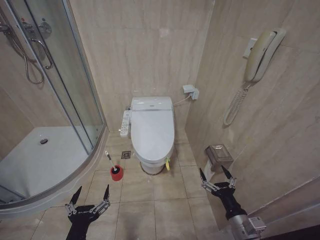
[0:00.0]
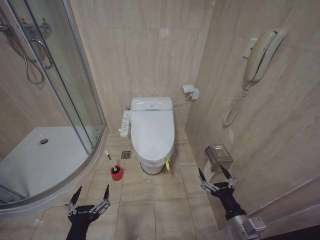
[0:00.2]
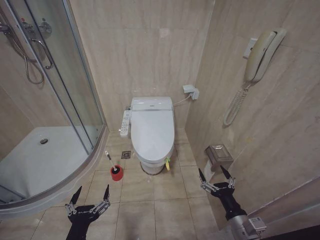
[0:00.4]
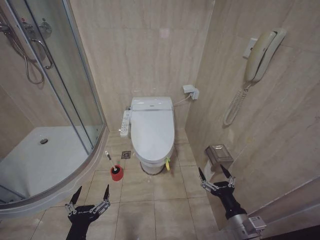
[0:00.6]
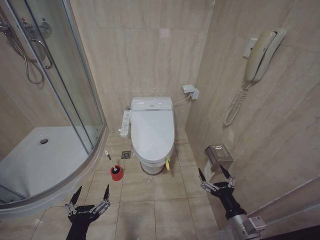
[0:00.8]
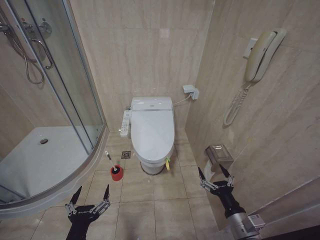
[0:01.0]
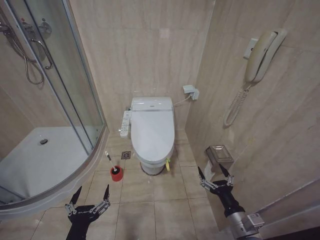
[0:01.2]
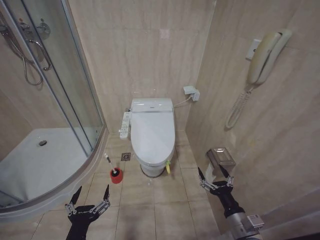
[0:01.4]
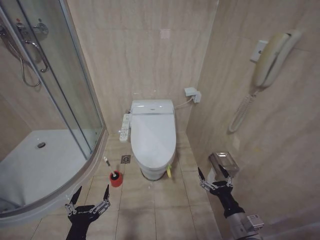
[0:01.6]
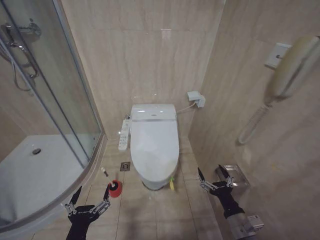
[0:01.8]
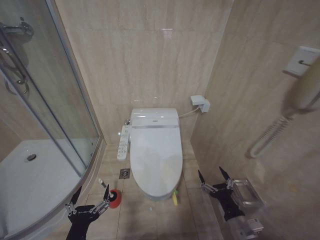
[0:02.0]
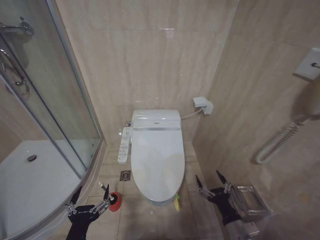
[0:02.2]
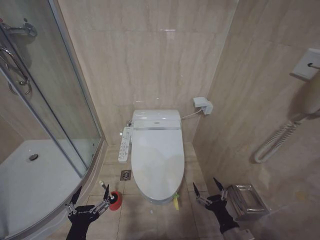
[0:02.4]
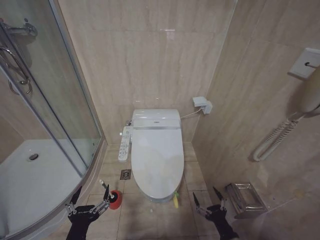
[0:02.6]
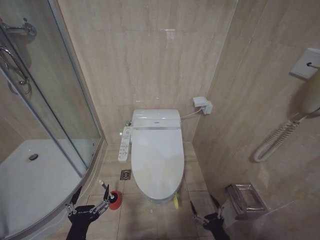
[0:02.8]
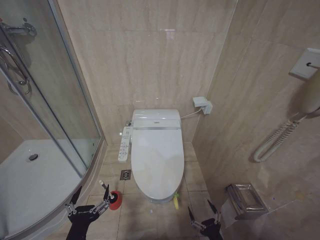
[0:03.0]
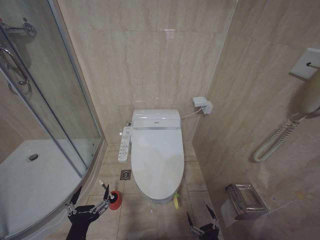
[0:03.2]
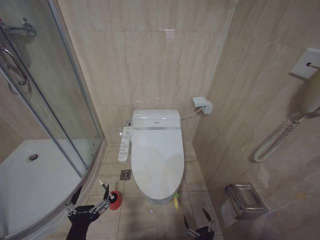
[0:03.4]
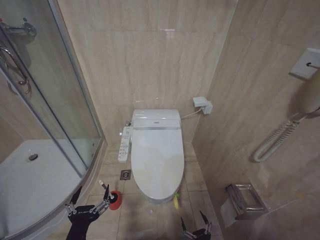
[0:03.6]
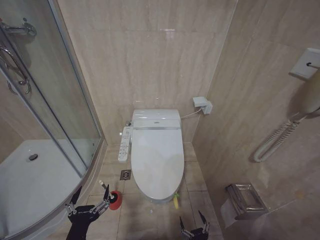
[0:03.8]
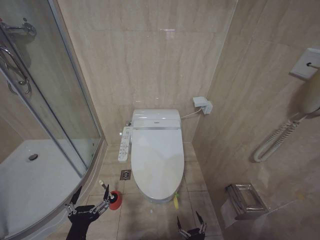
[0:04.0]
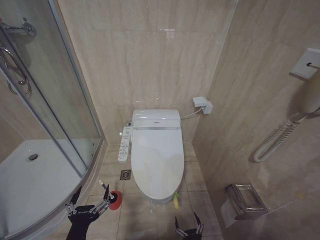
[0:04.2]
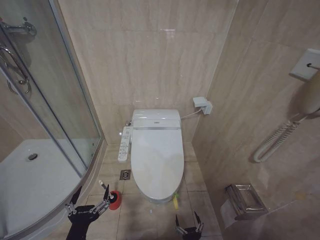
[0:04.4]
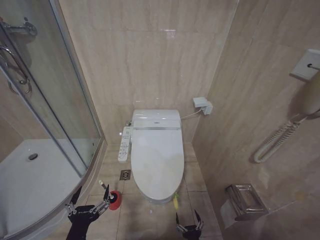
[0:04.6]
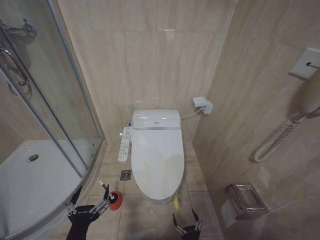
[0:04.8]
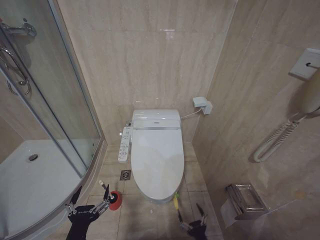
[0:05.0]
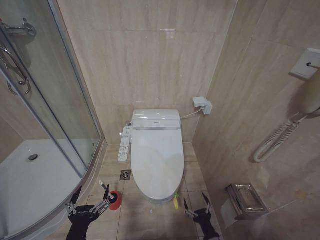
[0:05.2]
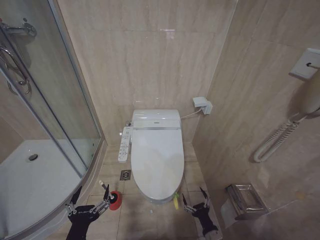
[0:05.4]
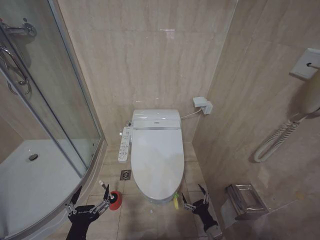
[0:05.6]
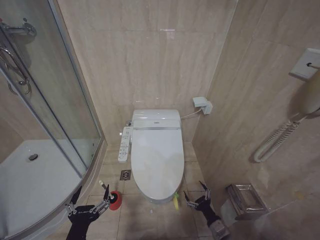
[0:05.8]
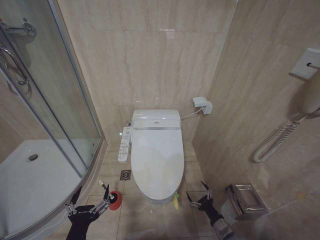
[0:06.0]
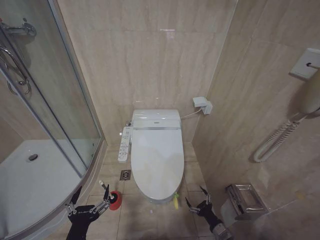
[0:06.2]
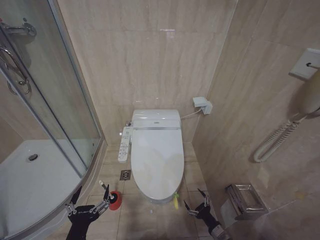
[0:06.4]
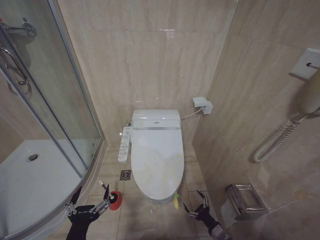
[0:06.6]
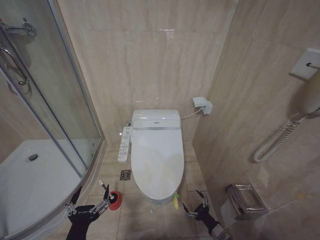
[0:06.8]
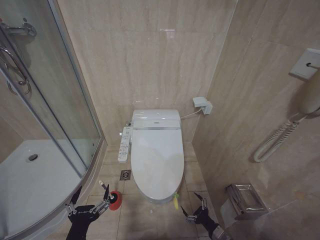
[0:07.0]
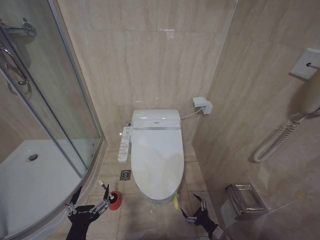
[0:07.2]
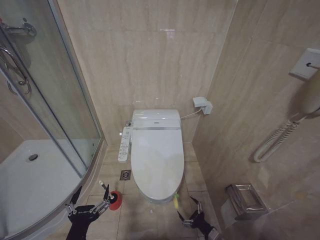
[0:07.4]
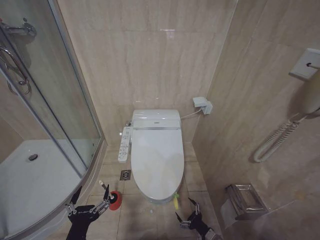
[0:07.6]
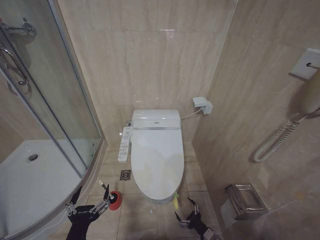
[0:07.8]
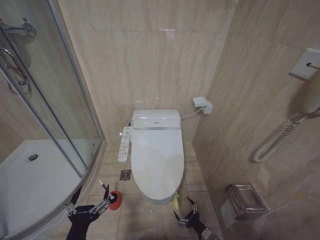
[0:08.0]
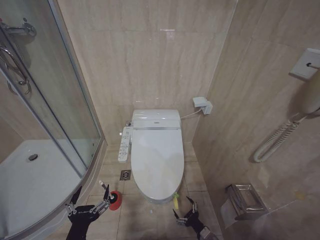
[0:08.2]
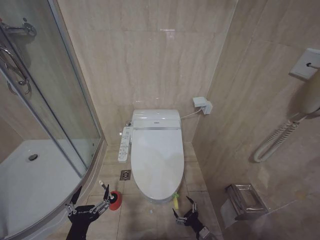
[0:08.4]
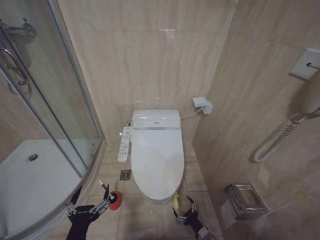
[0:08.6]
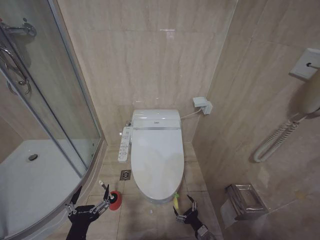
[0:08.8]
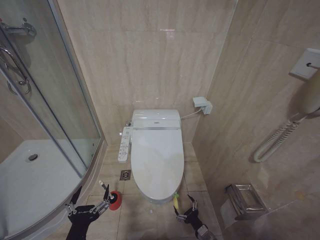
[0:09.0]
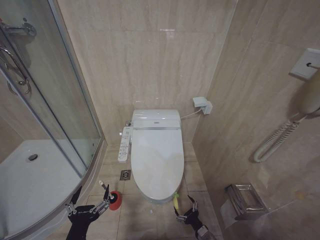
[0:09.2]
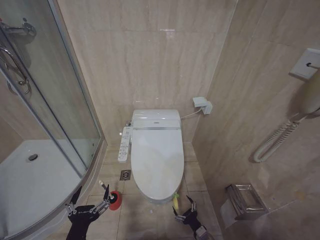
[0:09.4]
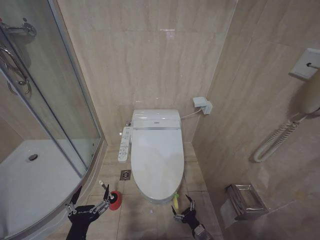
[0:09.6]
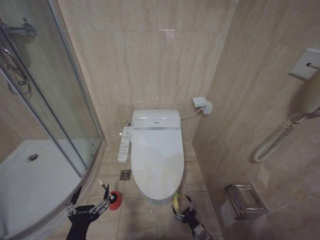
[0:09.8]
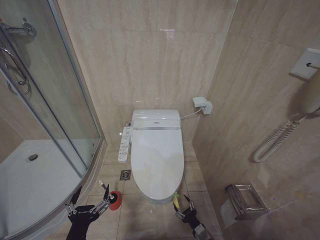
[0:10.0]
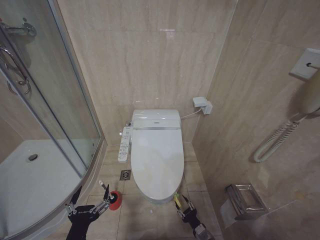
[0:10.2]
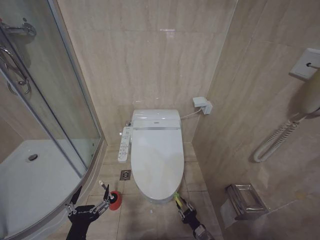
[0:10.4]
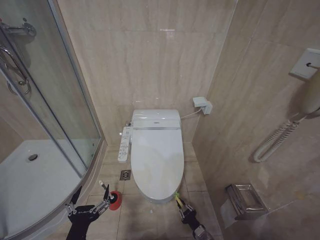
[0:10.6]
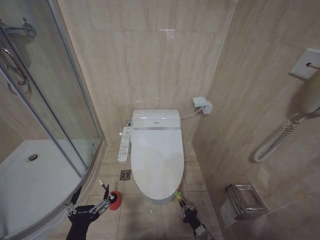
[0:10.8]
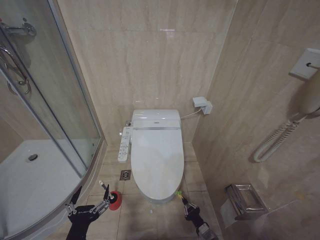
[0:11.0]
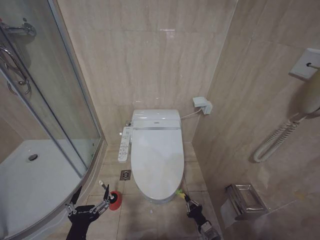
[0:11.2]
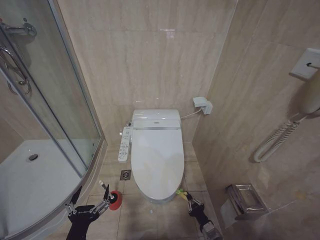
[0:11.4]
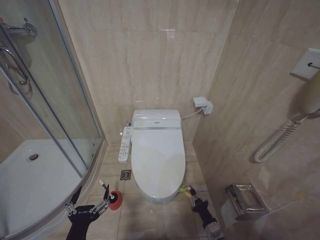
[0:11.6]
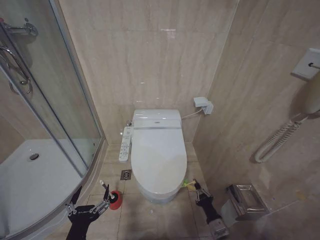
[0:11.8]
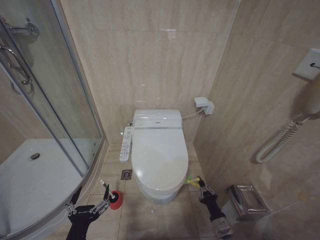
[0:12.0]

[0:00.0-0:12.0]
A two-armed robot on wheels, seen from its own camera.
Task of the whole recording: Open the toilet lid, clean the toilet bowl with a toilet brush, close the toilet lid, and flush.
0:01.6 to 0:03.0: The right gripper travels downward and backward by approximately 15 cm.
0:03.0 to 0:04.4: The right gripper heads downward and to the left, covering roughly 15 cm.
0:04.4 to 0:06.0: The right gripper moves to the right, forward and upward, approximately 20 cm.
0:06.0 to 0:07.6: There are only small adjustments of the grippers.
0:10.4 to 0:12.0: The right gripper travels upward by about 10 cm, and closes up.

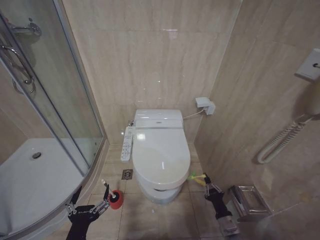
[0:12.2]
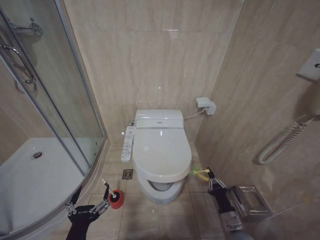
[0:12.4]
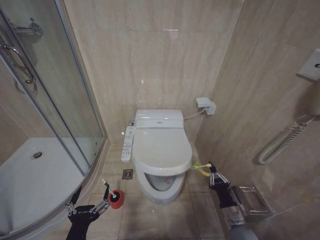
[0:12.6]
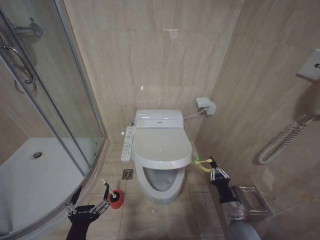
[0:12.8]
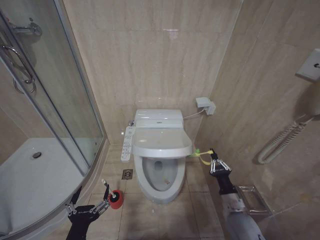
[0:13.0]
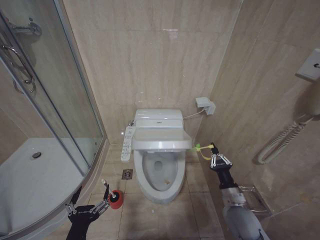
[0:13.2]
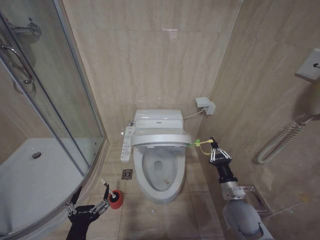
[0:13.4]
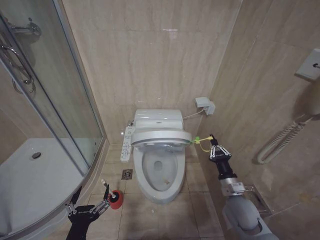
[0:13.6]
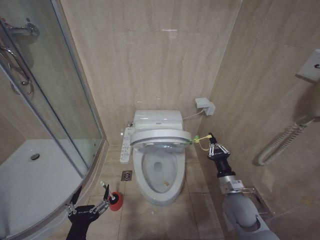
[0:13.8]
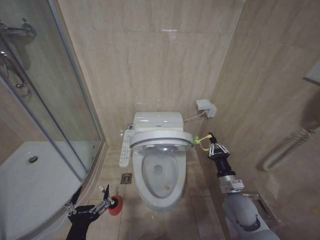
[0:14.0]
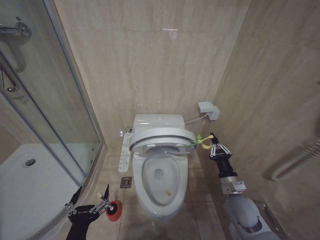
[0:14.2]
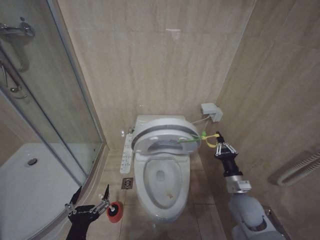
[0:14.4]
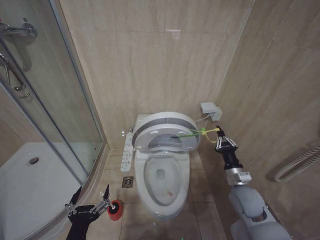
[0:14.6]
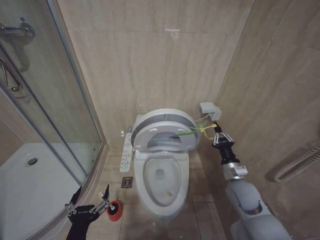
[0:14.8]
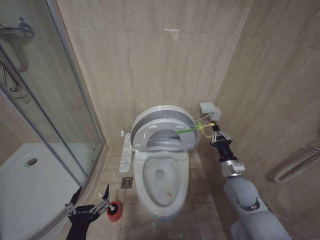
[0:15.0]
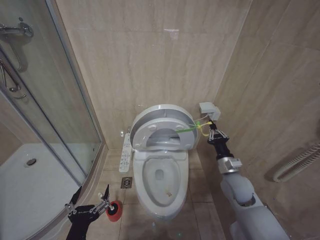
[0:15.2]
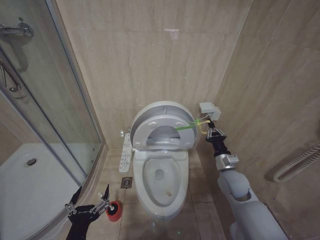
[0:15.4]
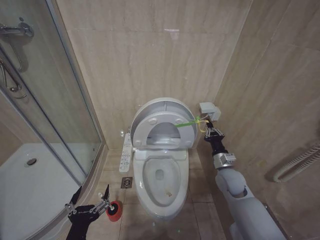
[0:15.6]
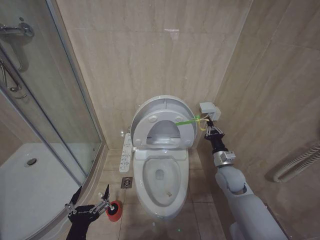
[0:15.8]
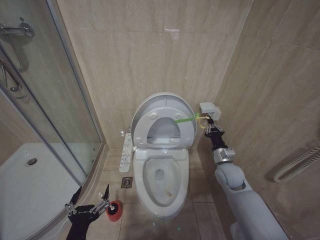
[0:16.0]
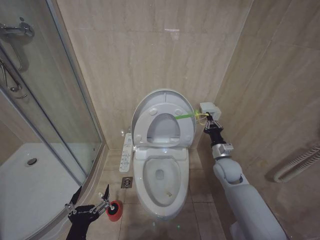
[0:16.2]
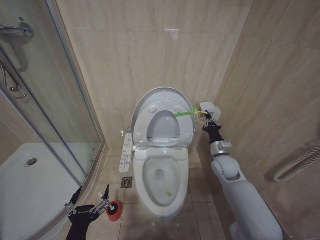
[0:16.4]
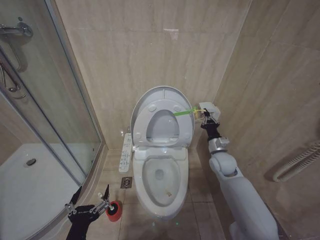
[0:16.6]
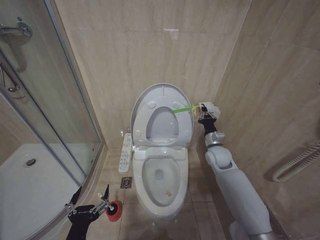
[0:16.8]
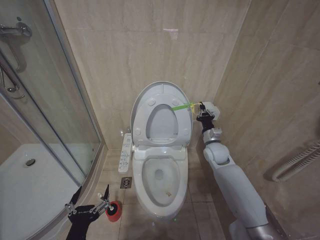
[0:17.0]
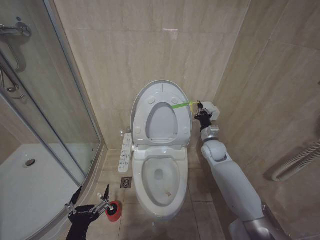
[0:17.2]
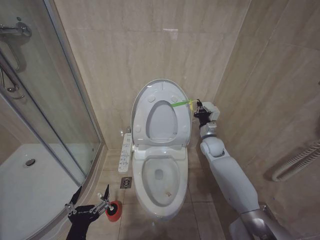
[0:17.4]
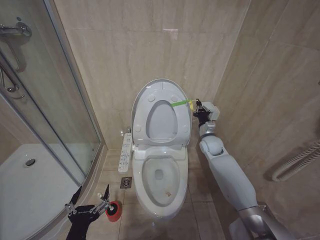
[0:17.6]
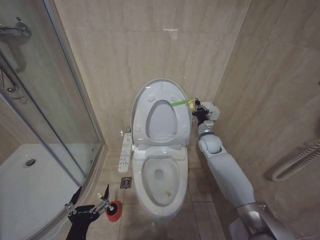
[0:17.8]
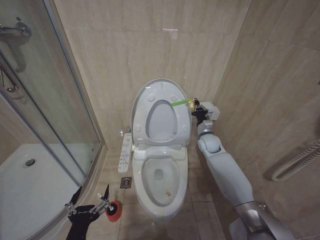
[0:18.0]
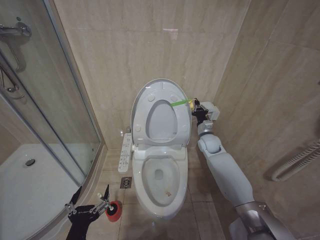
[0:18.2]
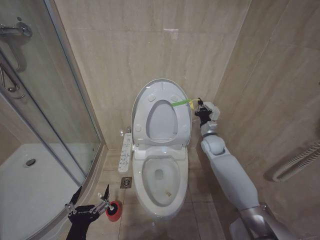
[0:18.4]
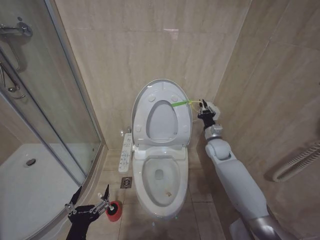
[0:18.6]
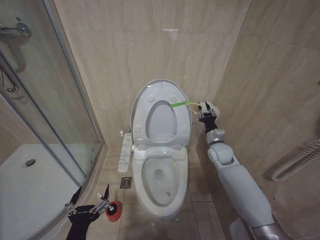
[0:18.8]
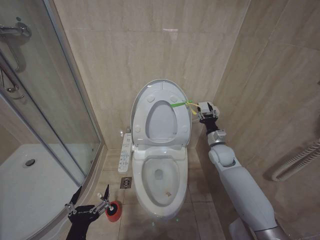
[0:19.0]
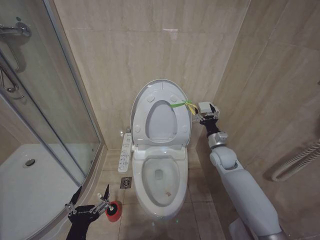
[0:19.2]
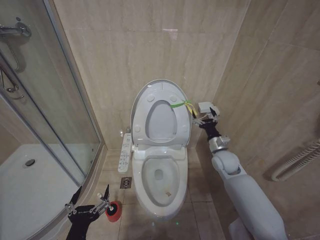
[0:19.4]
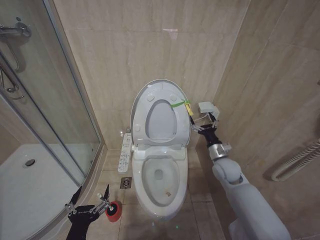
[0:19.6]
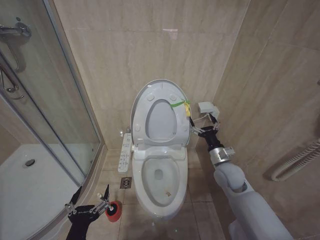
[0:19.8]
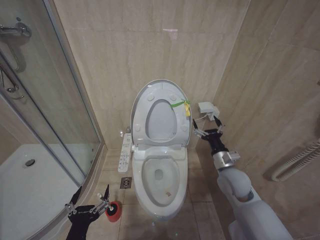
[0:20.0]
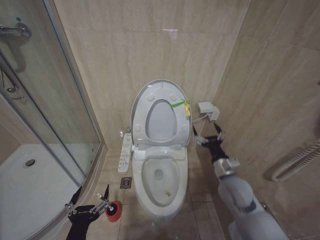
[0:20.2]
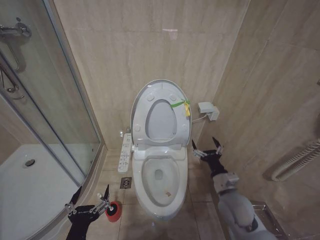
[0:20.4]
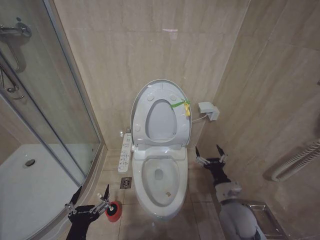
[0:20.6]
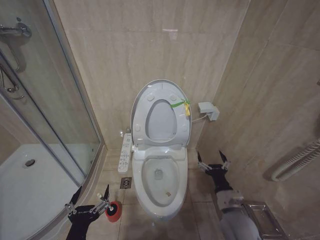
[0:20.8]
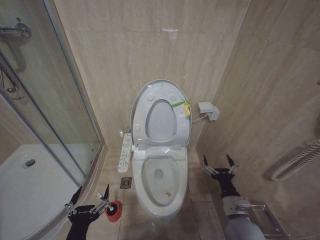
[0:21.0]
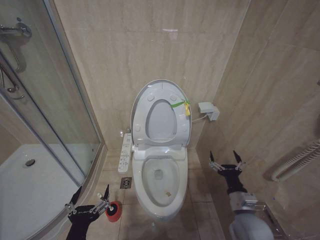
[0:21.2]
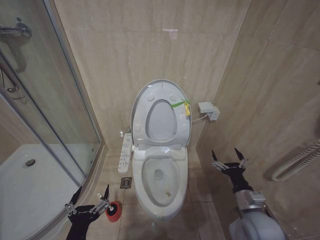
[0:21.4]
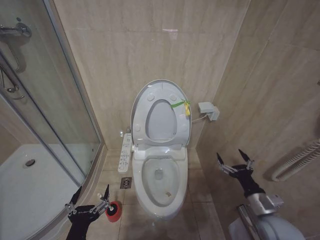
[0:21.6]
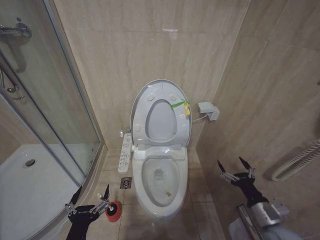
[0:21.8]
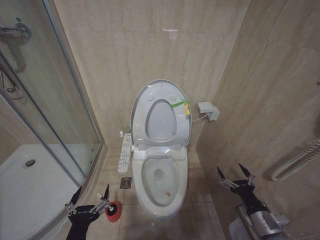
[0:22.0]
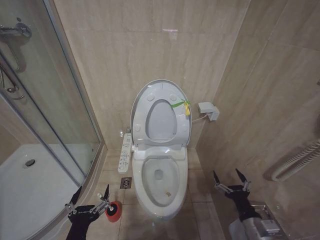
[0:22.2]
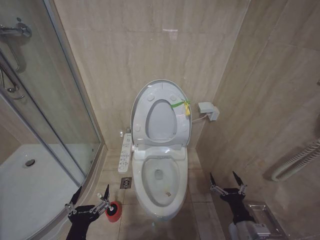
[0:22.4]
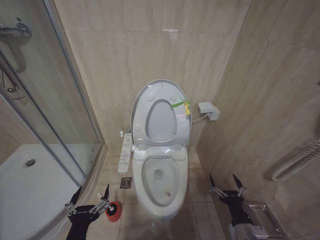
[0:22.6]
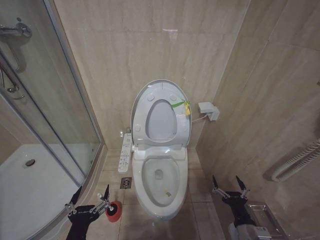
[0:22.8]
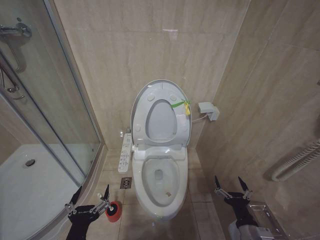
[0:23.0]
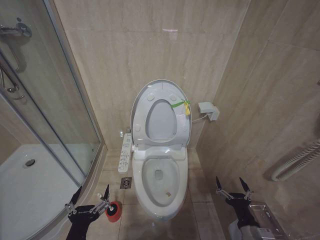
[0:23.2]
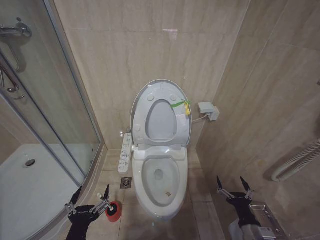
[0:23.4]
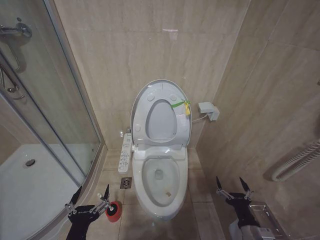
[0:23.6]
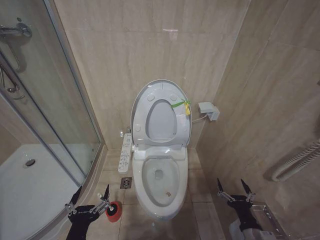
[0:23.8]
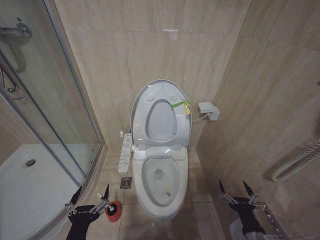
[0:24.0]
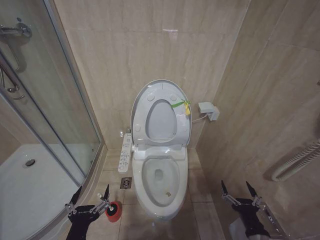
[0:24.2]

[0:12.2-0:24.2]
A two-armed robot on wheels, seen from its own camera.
Task of the whole recording: Open the toilet lid, clean the toilet bowl with a toilet brush, close the toilet lid, and flush.
0:12.2 to 0:13.8: The right gripper is displaced upward and forward by about 15 cm.
0:13.8 to 0:15.2: The right gripper heads forward, covering roughly 5 cm.
0:15.2 to 0:16.6: The right gripper travels forward by about 10 cm.
0:16.6 to 0:18.2: The right gripper heads forward, covering about 10 cm.
0:18.2 to 0:19.8: The right gripper travels backward by about 15 cm, and opens up.
0:19.8 to 0:21.2: The right gripper is displaced backward and downward by roughly 15 cm.
0:21.2 to 0:22.6: The right gripper is displaced backward by some 10 cm, and reaches some 10 cm to the right, then returns.
0:22.6 to 0:24.2: The grippers move only a little.
